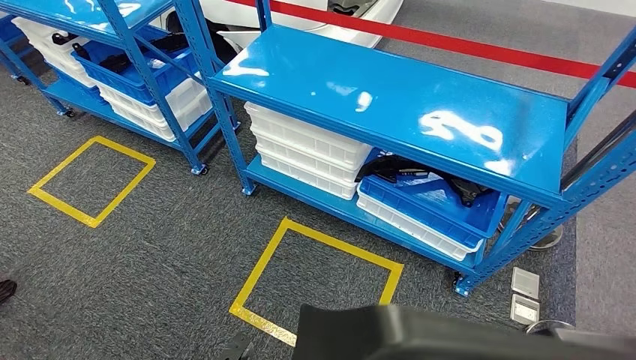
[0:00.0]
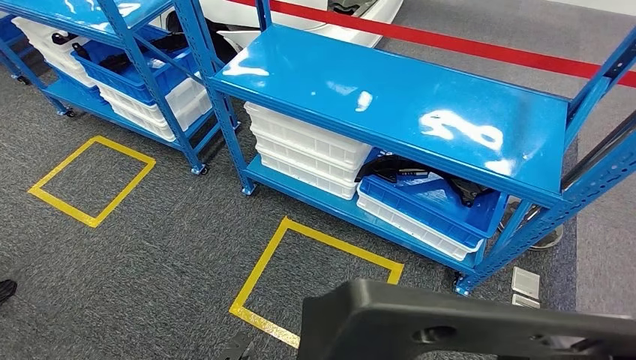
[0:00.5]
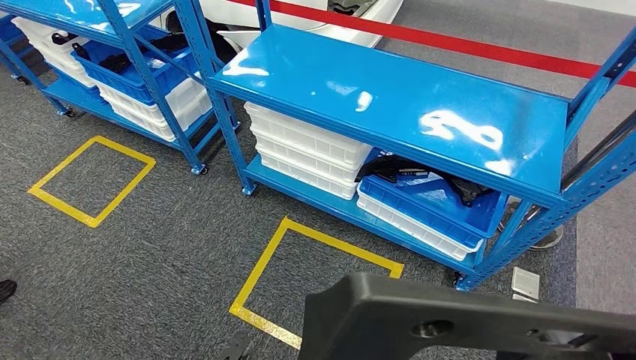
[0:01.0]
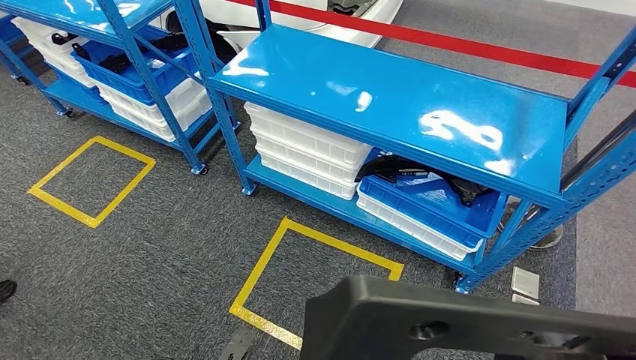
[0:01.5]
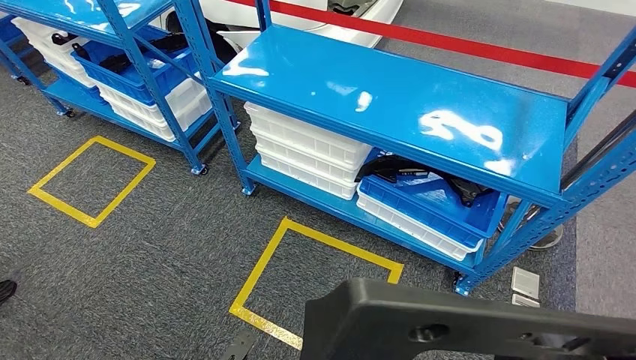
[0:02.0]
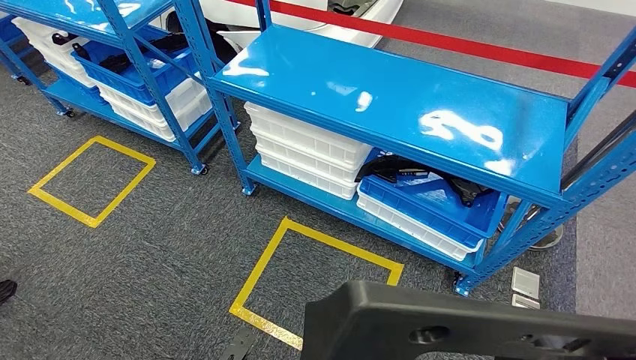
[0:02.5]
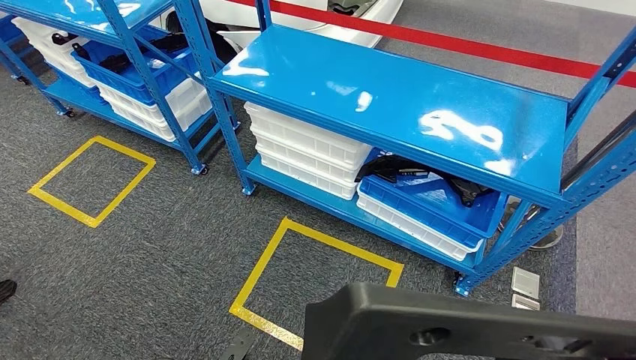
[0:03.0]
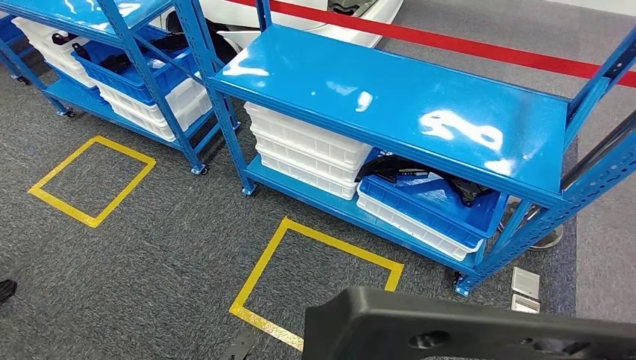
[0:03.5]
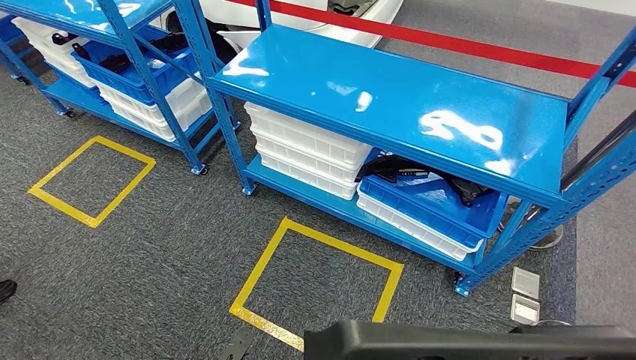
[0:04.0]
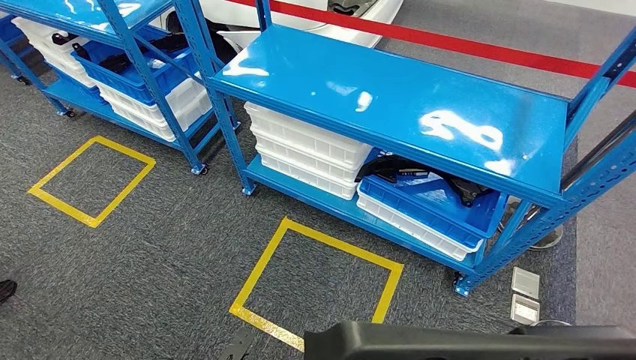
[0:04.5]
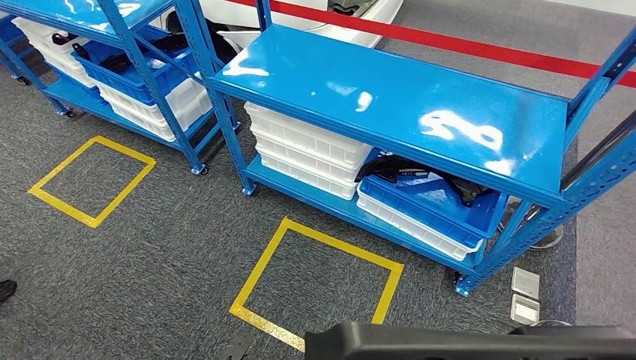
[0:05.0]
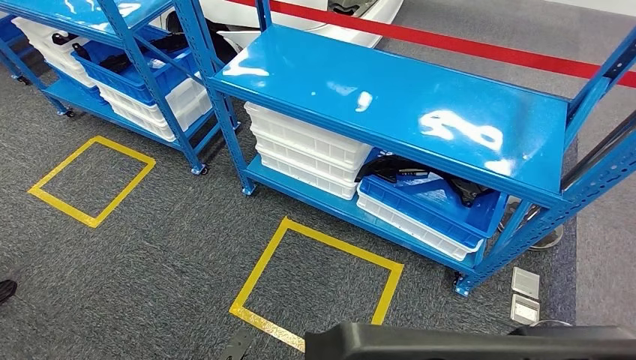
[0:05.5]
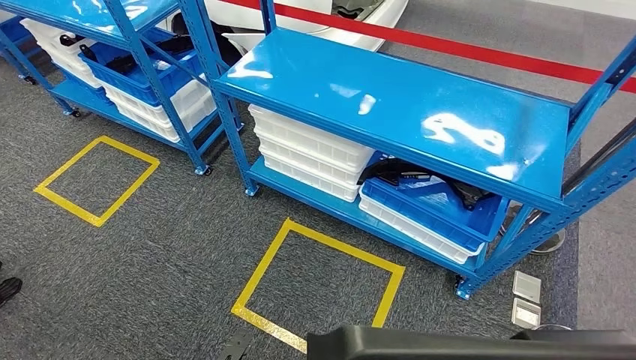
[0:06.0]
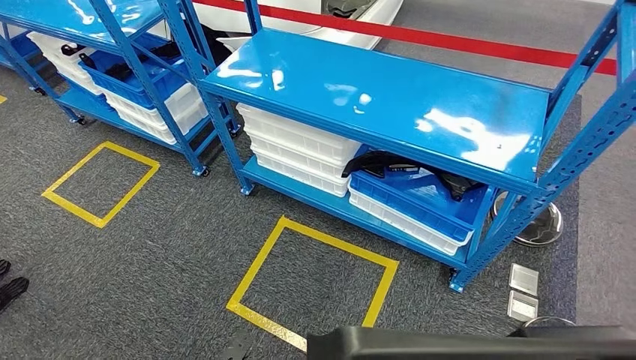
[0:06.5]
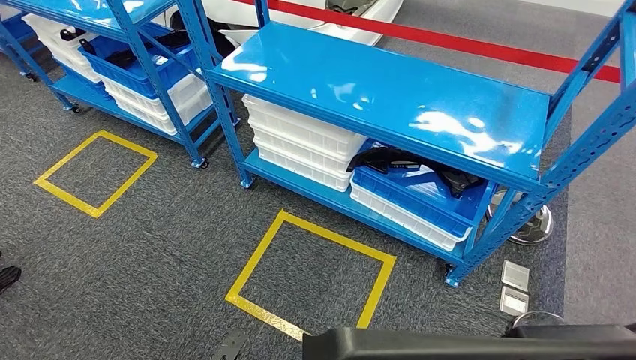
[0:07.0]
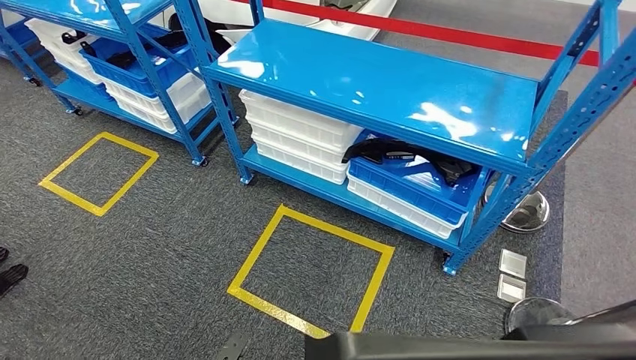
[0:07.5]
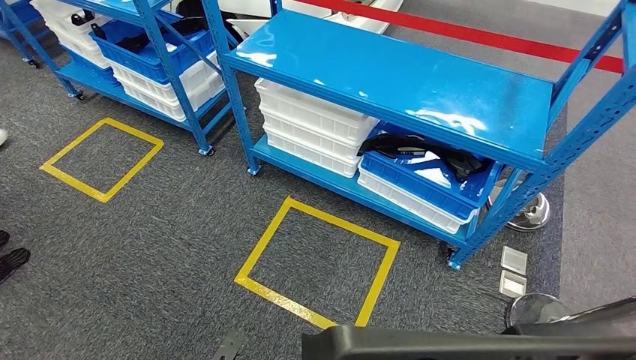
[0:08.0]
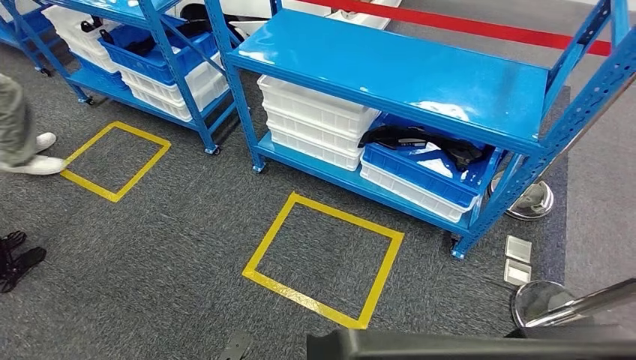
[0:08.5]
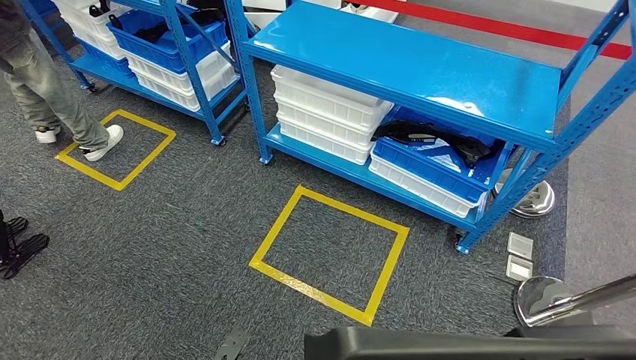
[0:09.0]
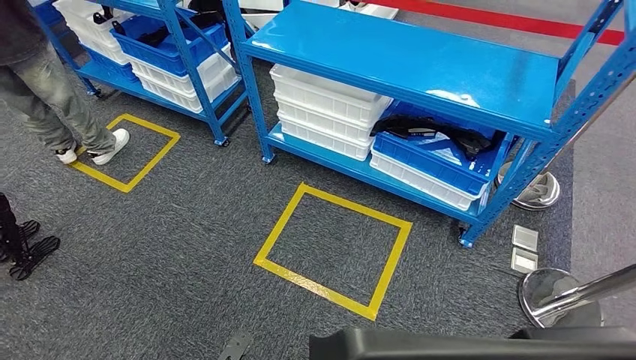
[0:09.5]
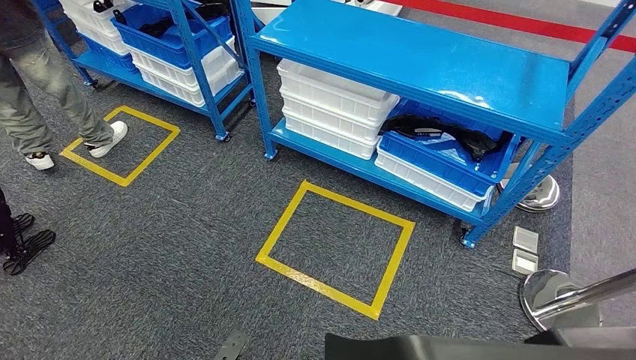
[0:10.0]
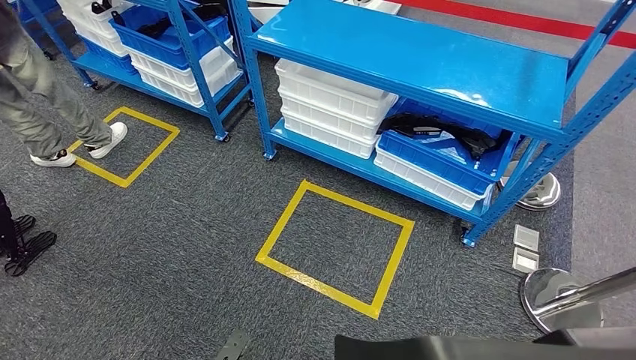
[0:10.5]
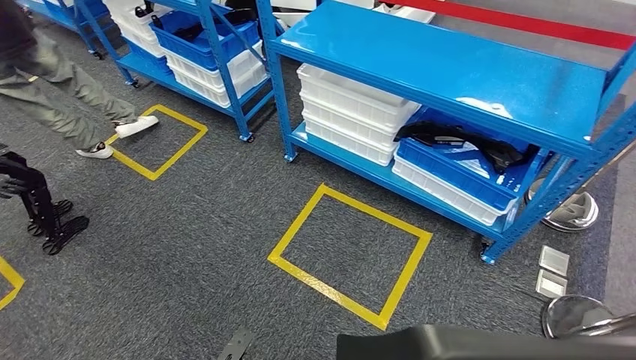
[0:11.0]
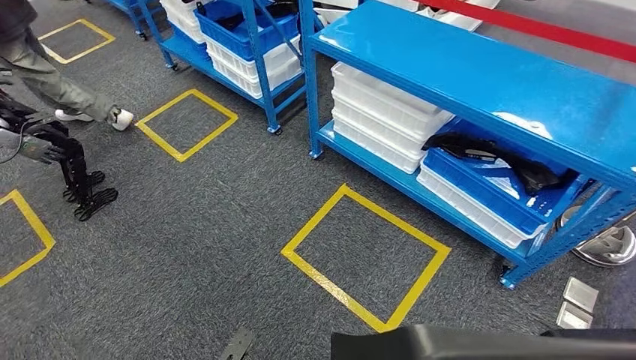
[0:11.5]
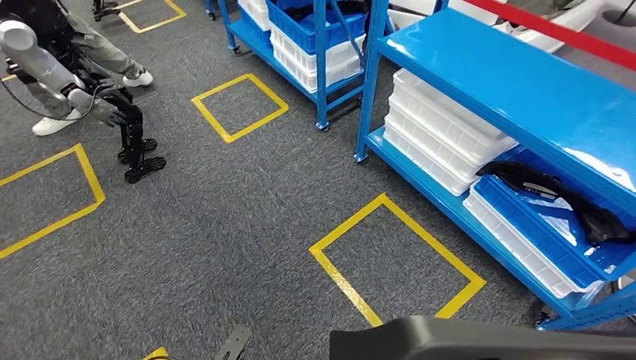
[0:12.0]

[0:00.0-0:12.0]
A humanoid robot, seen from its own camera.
0:00.0 to 0:02.0: The hands stay close to where they were, moving slightly.
0:02.0 to 0:06.0: Both hands stay about where they are.

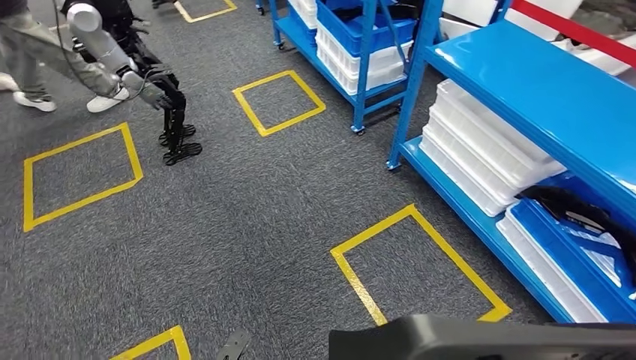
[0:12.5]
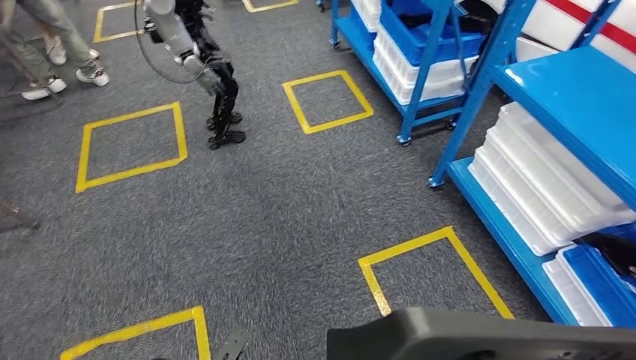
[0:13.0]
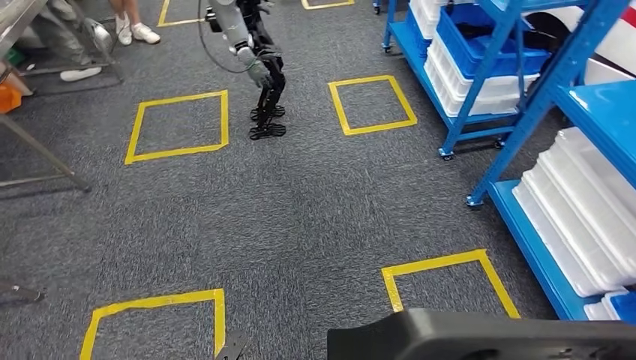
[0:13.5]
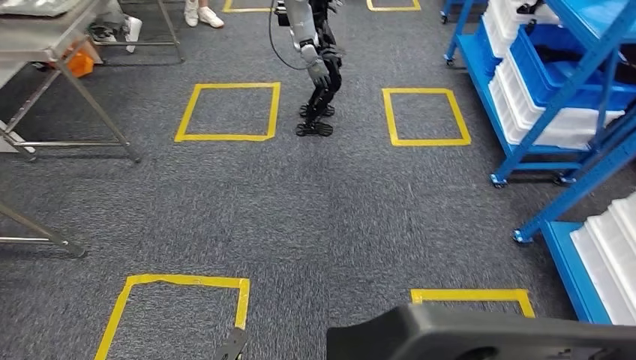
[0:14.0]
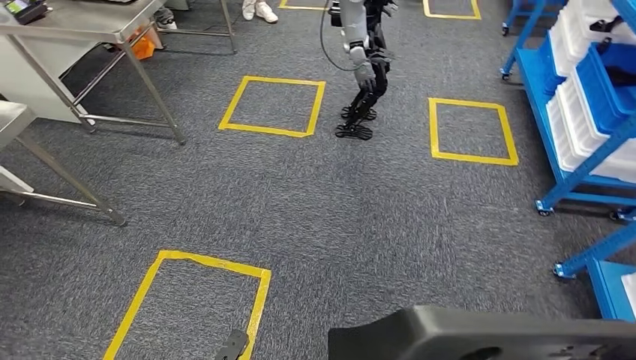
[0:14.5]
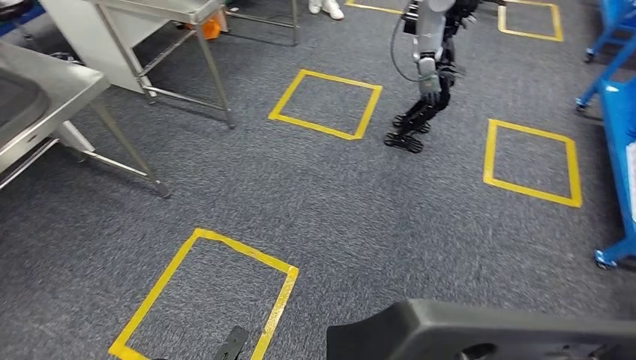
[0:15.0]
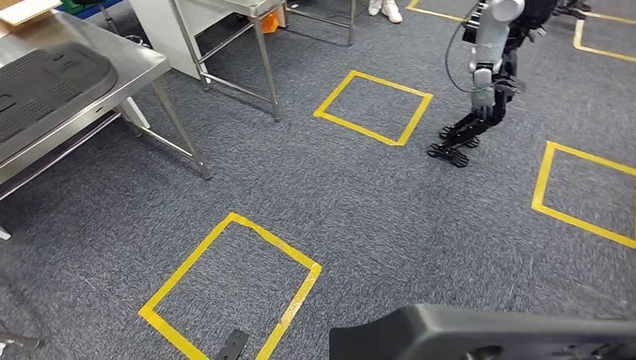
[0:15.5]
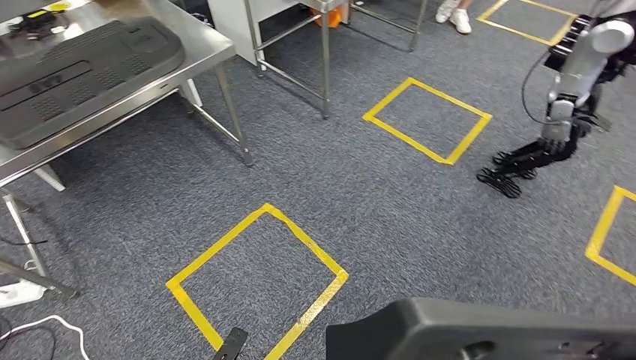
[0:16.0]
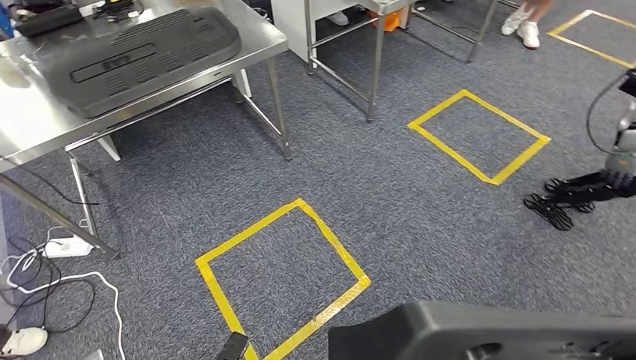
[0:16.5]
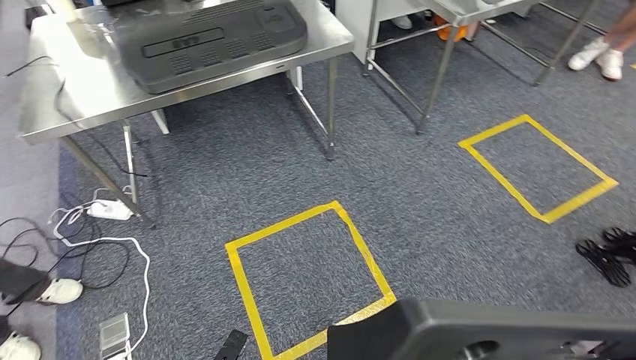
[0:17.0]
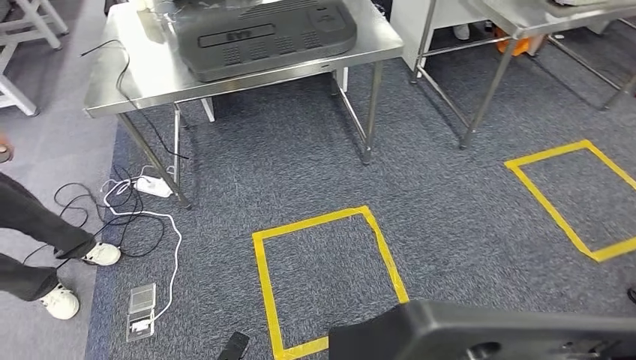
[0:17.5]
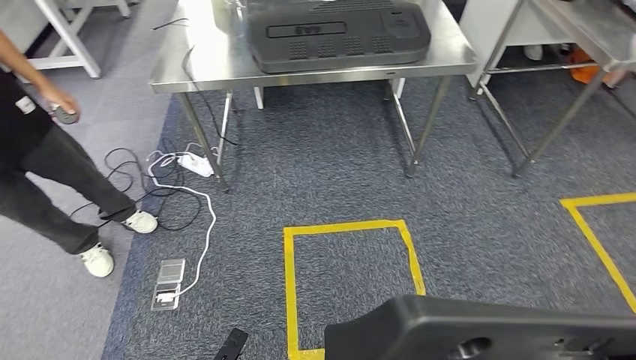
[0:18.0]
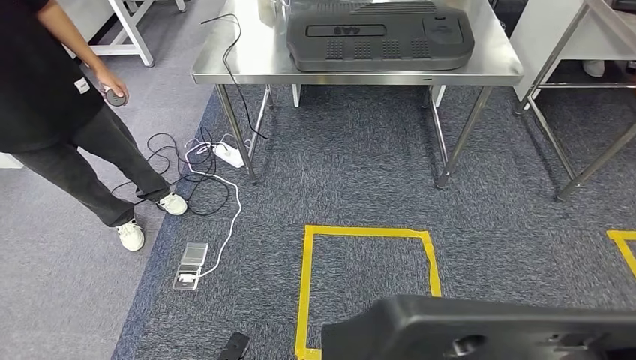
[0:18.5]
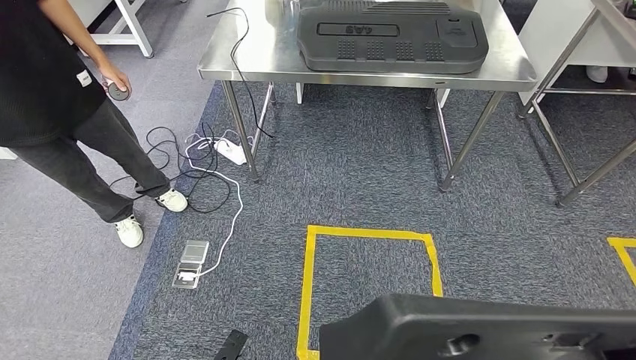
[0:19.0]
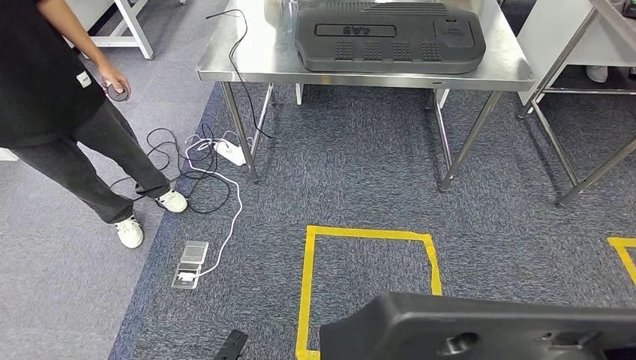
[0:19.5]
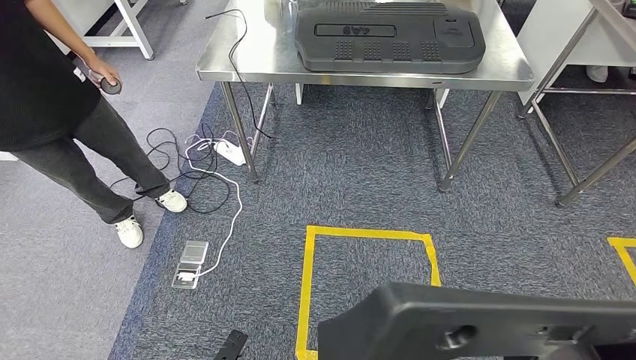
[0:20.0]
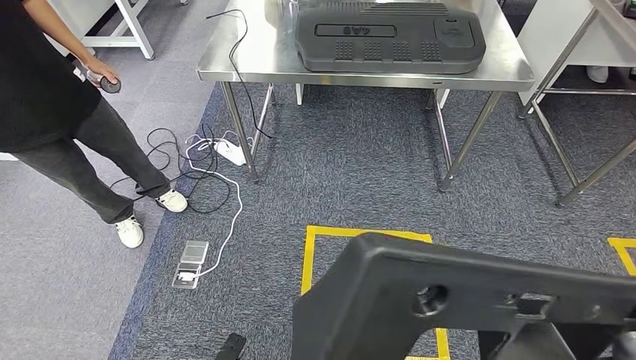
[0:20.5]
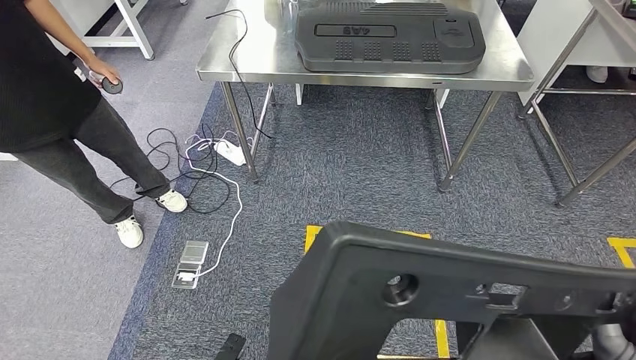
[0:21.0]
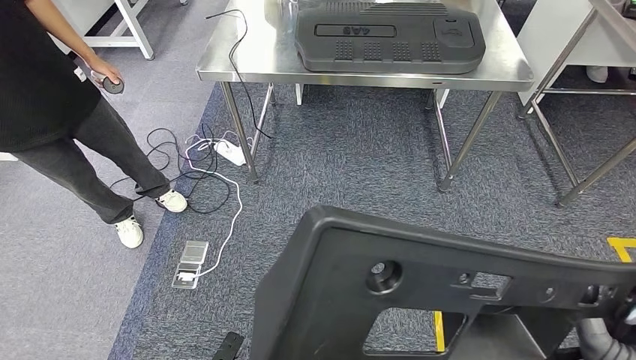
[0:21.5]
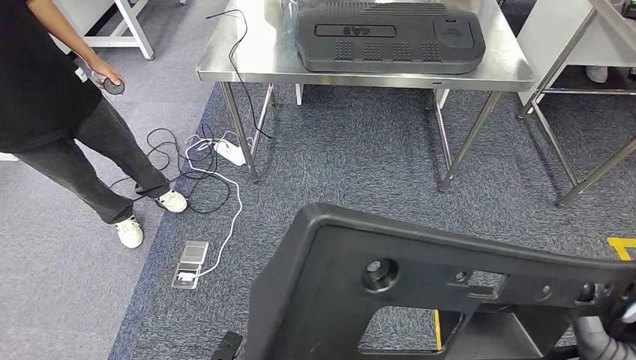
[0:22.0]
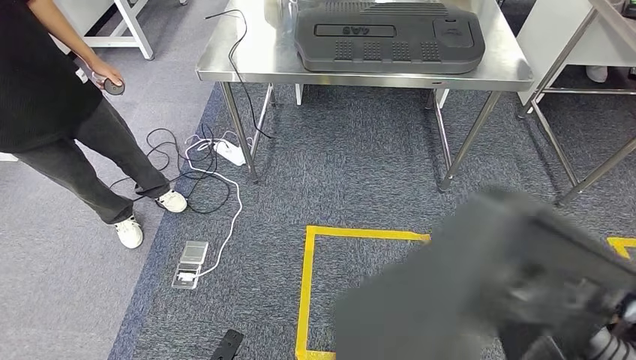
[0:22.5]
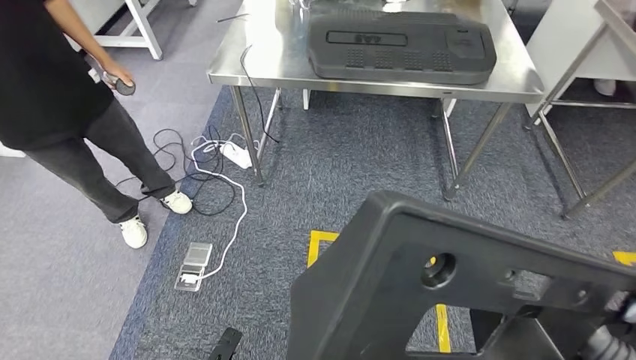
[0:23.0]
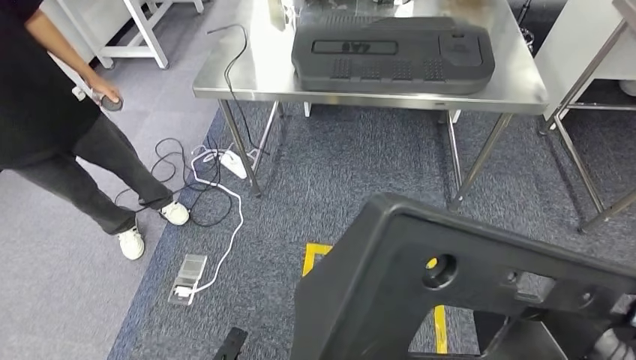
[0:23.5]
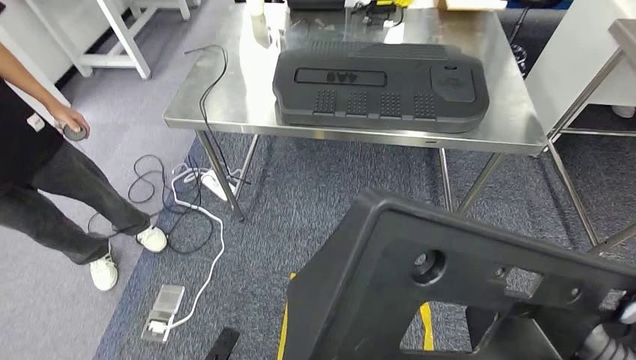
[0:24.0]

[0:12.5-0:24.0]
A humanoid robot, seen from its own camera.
0:18.5 to 0:20.0: Neither hand changes place.
